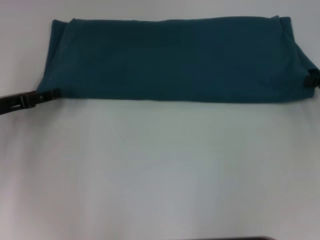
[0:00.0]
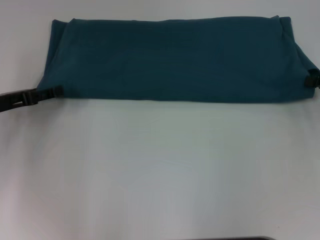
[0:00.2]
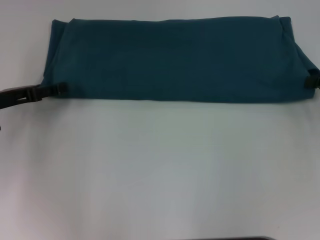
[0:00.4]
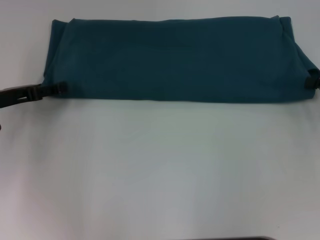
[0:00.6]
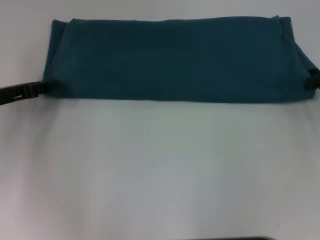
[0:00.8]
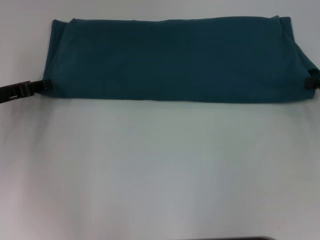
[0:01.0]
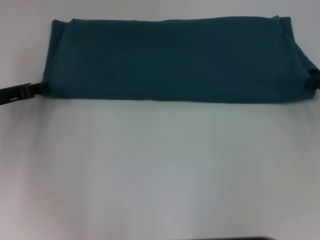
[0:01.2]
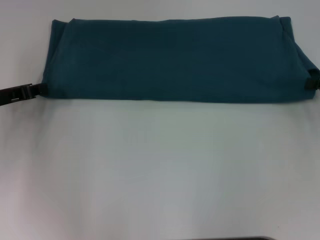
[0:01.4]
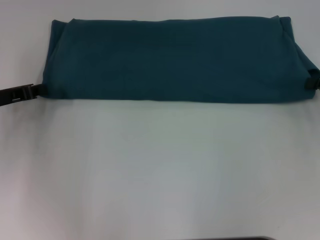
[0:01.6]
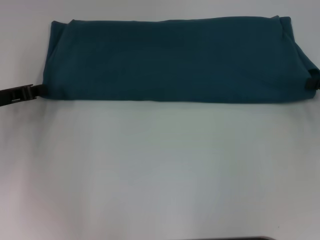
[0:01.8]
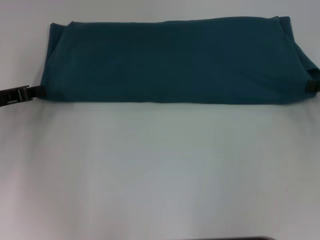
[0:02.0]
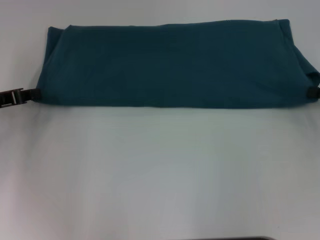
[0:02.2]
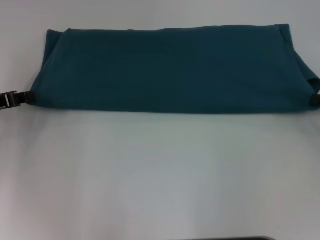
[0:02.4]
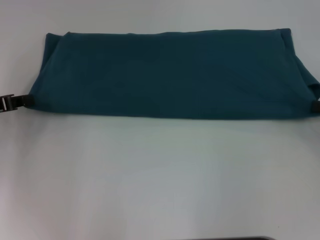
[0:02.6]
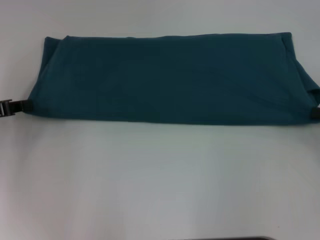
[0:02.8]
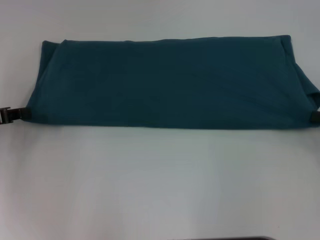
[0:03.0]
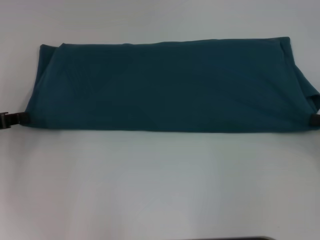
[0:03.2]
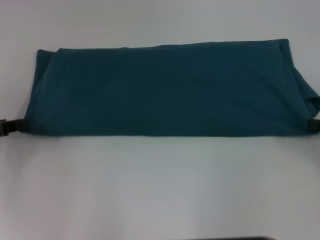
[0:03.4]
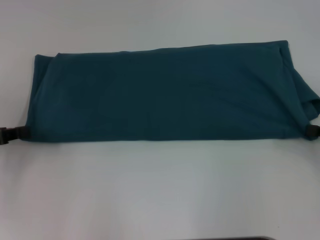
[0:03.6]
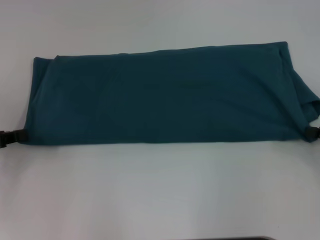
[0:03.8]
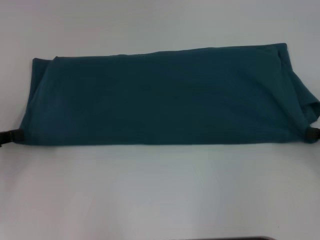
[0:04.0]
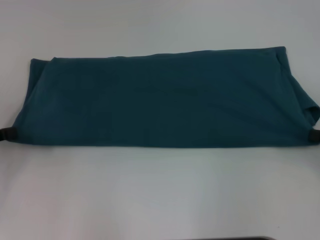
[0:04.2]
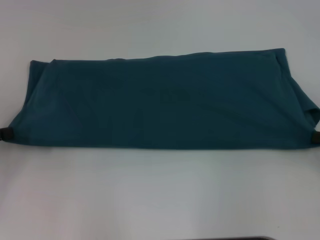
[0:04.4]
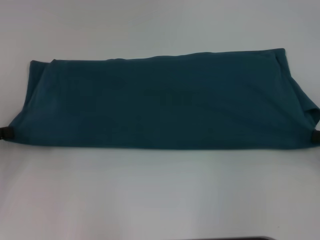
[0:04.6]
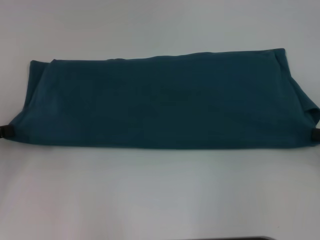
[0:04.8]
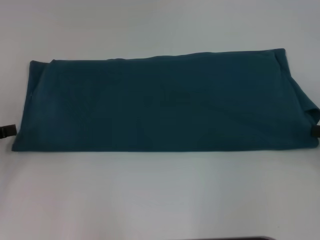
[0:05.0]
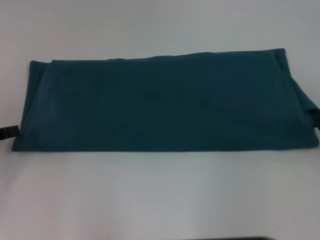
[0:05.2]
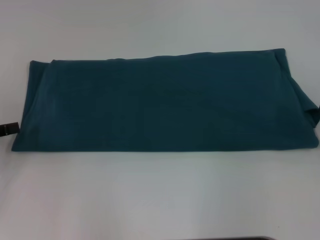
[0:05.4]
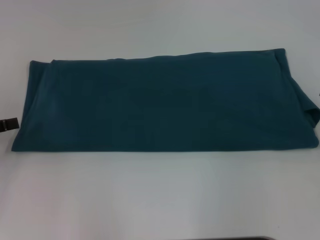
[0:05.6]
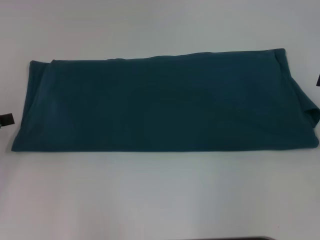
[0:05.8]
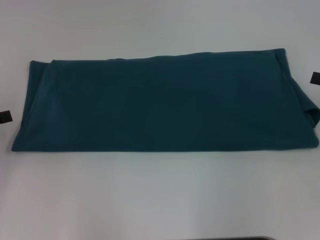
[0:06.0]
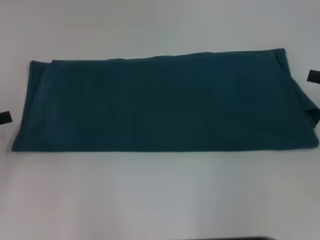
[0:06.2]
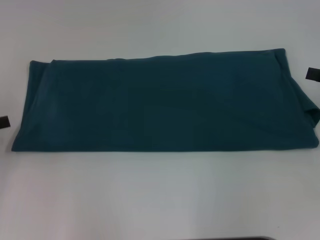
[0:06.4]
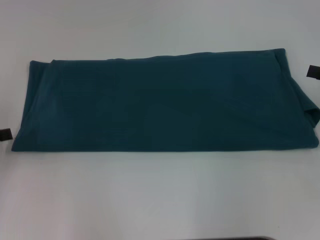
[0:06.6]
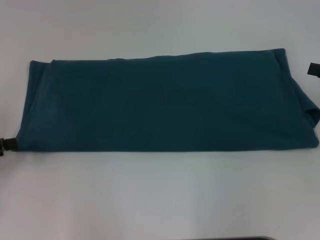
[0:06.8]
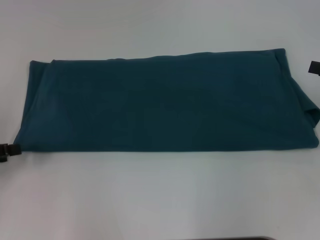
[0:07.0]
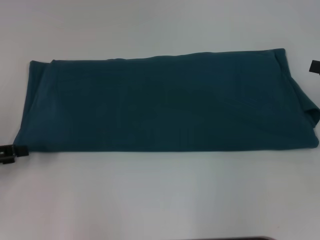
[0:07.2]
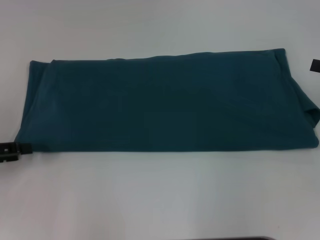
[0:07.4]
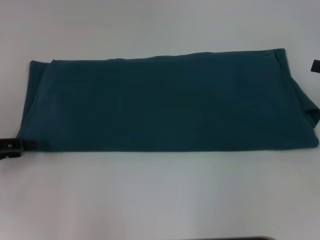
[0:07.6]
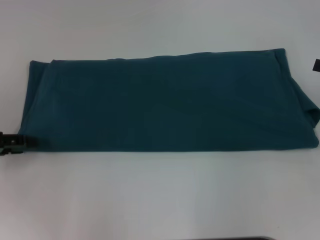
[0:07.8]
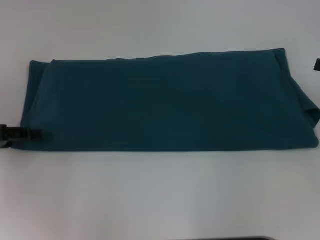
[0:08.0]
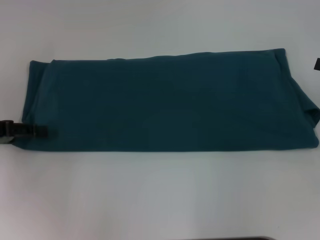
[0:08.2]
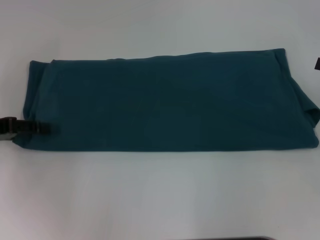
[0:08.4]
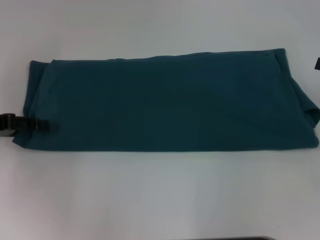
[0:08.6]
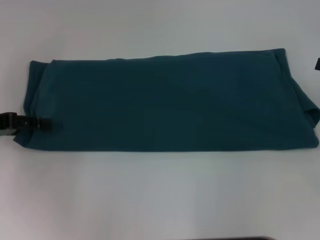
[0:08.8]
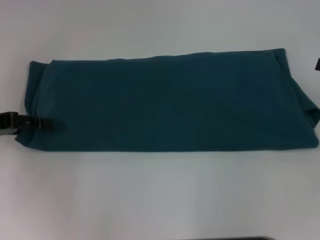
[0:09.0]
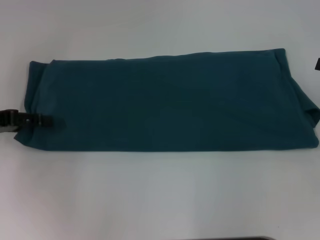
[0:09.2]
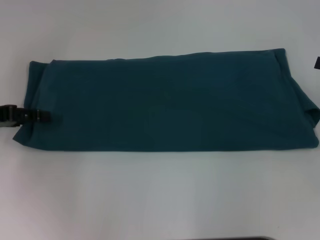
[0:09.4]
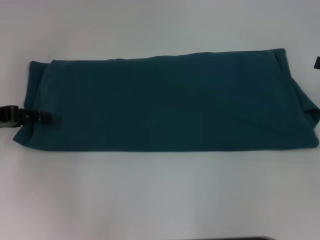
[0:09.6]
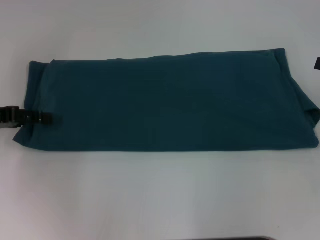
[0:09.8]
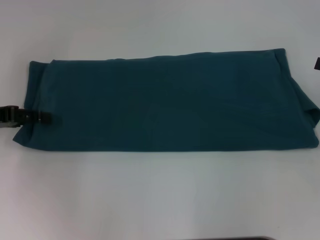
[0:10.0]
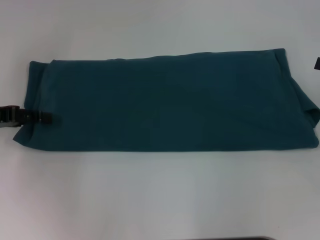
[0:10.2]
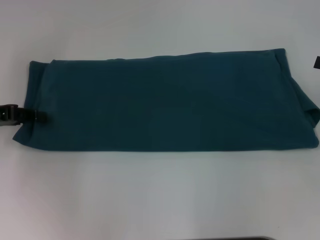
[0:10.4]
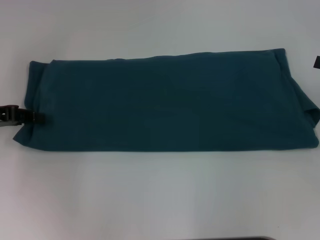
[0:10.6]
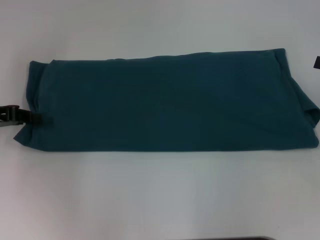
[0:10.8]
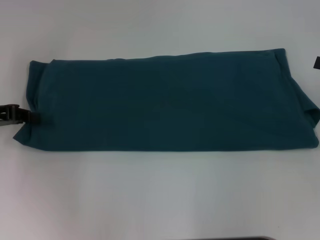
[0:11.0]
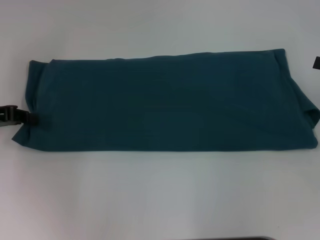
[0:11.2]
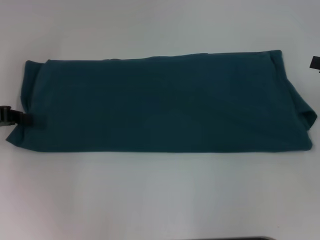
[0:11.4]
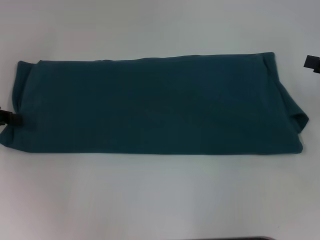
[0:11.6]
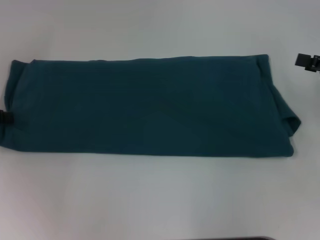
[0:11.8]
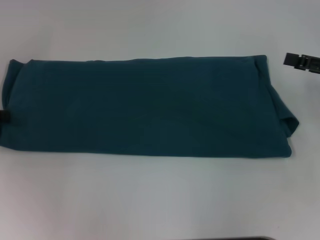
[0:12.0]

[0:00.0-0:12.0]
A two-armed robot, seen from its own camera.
Step, 0:00.0 to 0:04.8: Pull the clothes with your left hand.
Step, 0:00.0 to 0:04.8: Pull the clothes with your right hand.
0:00.0 to 0:01.6: The left gripper closes.
0:01.6 to 0:03.0: The right gripper heads backward, covering some 5 cm; the left gripper ends up approximately 5 cm from where it was.
0:03.0 to 0:04.4: The grippers make only small movements.
0:04.4 to 0:06.0: The right gripper ends up some 5 cm from where it was, and opens, while the left gripper opens.
0:06.0 to 0:07.6: The grippers stay close to where they were, moving slightly.
0:07.6 to 0:09.0: The left gripper moves roughly 5 cm.
0:10.4 to 0:12.0: The left gripper closes.

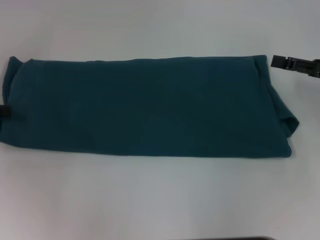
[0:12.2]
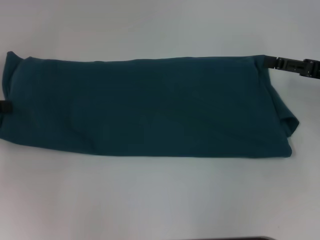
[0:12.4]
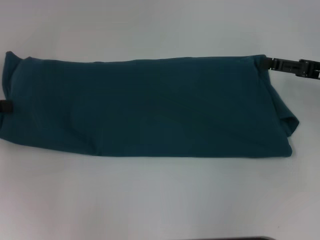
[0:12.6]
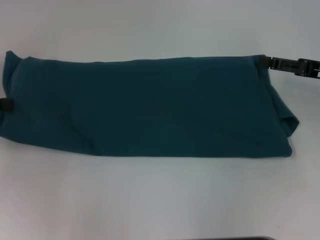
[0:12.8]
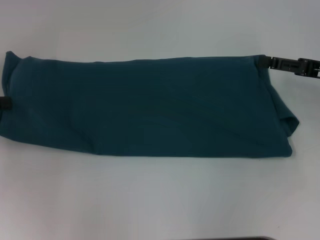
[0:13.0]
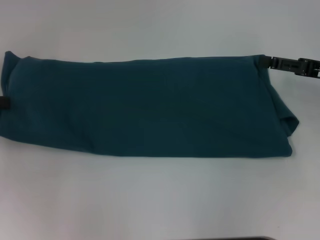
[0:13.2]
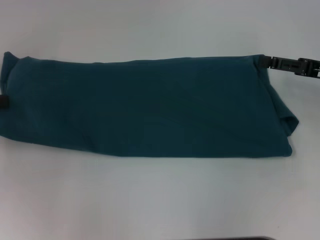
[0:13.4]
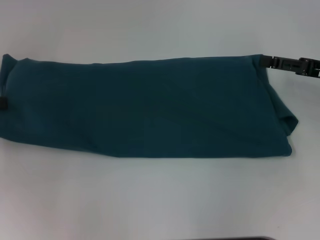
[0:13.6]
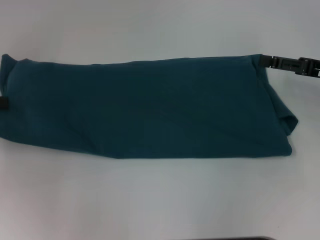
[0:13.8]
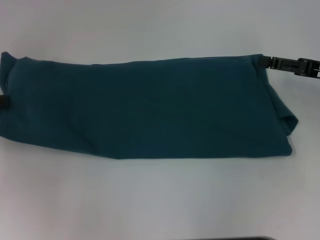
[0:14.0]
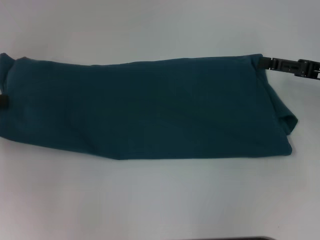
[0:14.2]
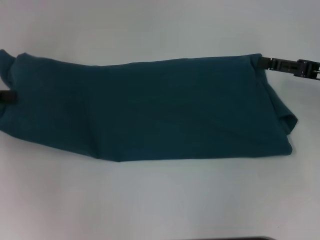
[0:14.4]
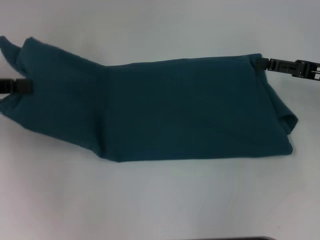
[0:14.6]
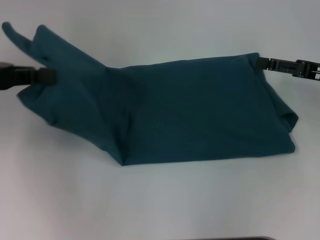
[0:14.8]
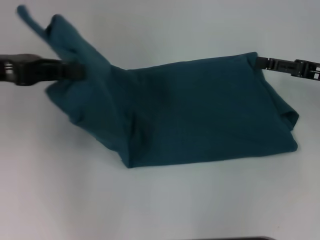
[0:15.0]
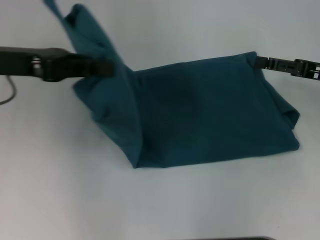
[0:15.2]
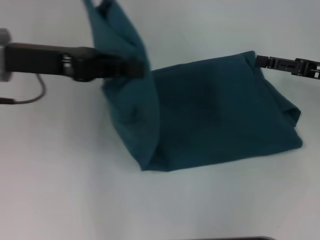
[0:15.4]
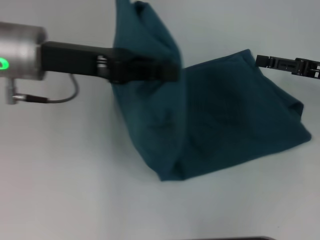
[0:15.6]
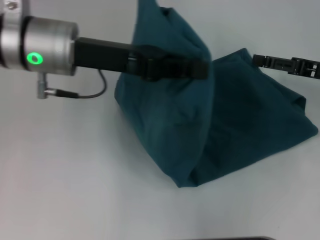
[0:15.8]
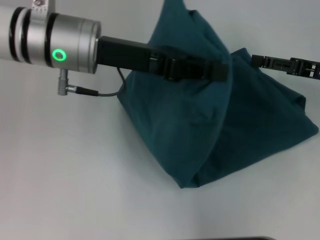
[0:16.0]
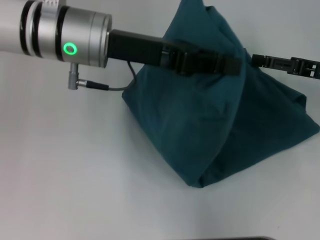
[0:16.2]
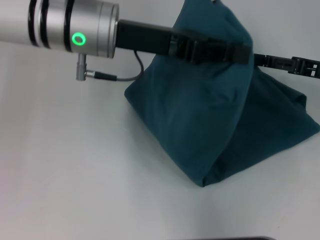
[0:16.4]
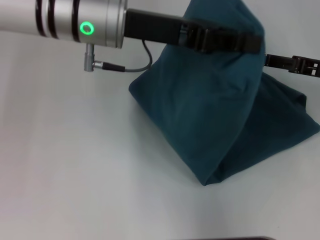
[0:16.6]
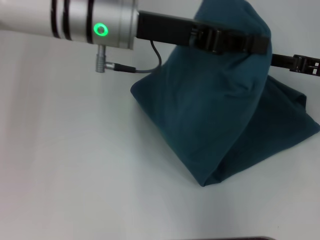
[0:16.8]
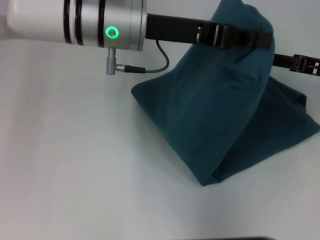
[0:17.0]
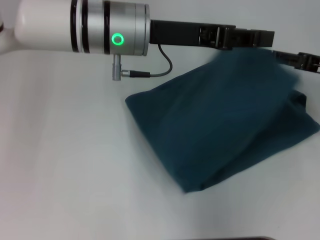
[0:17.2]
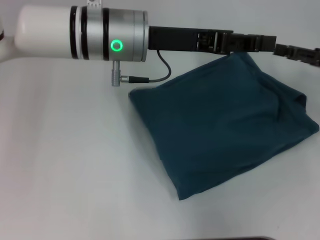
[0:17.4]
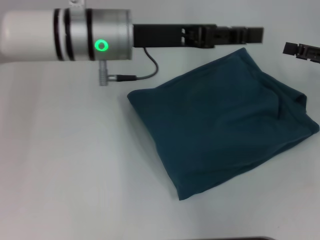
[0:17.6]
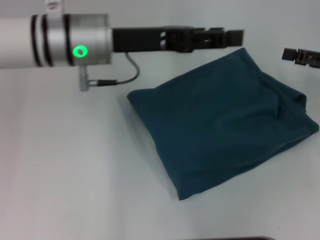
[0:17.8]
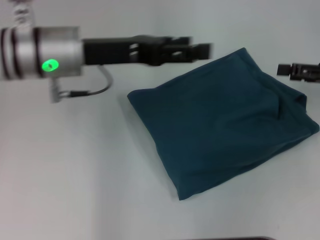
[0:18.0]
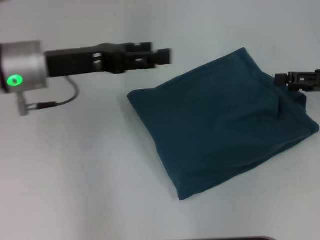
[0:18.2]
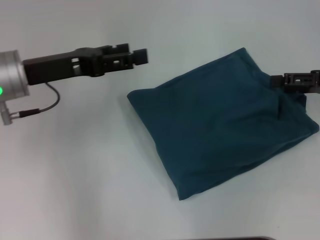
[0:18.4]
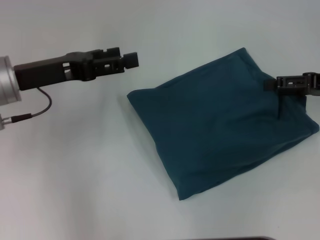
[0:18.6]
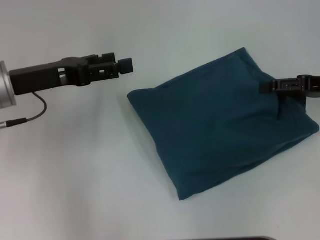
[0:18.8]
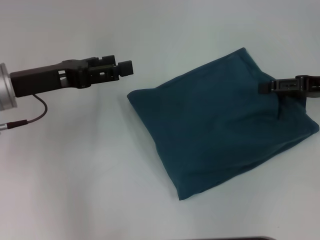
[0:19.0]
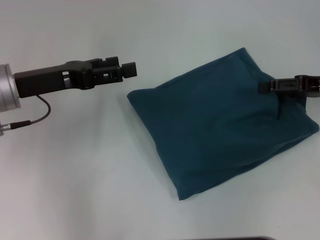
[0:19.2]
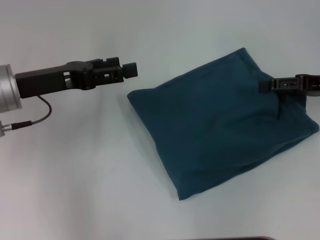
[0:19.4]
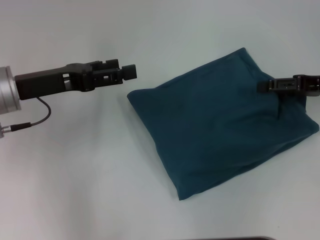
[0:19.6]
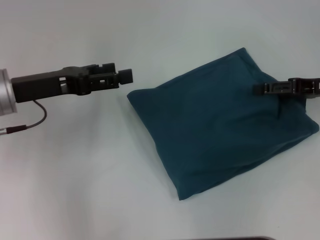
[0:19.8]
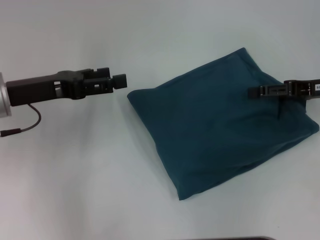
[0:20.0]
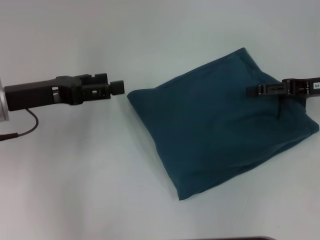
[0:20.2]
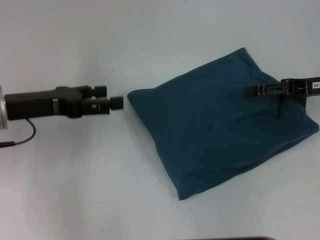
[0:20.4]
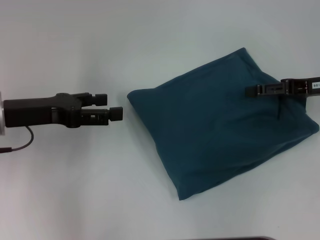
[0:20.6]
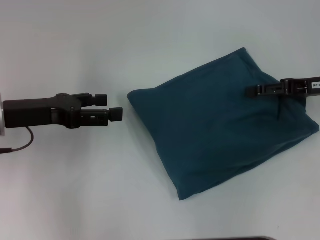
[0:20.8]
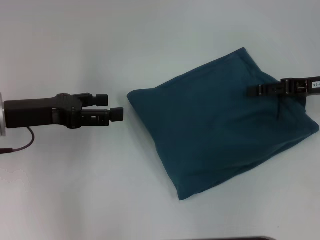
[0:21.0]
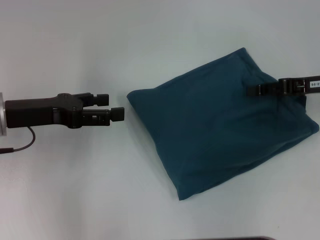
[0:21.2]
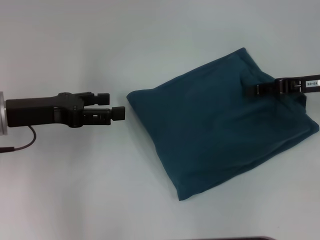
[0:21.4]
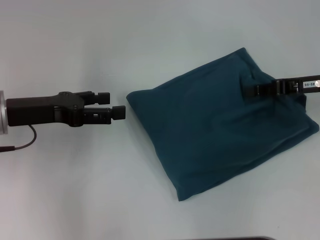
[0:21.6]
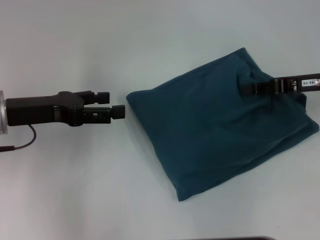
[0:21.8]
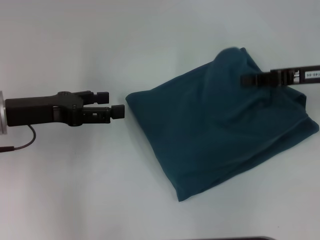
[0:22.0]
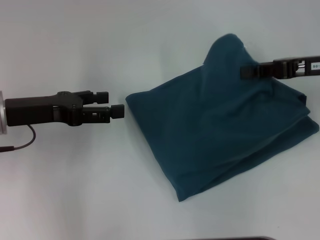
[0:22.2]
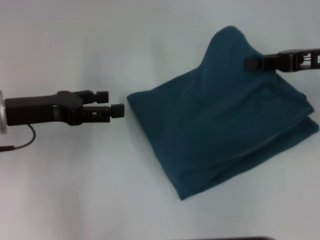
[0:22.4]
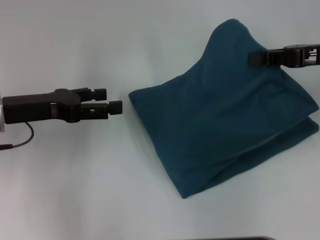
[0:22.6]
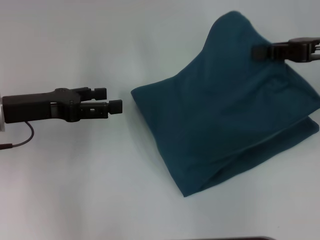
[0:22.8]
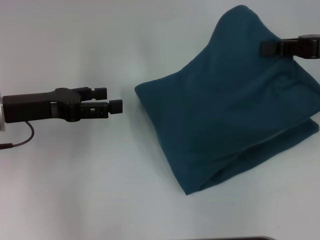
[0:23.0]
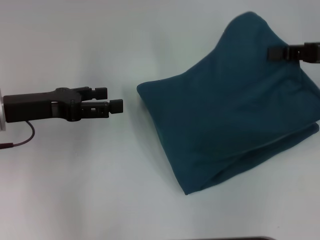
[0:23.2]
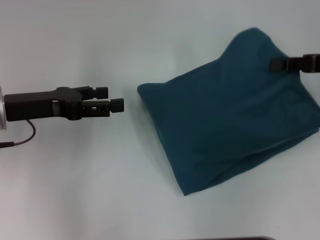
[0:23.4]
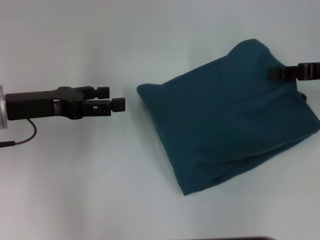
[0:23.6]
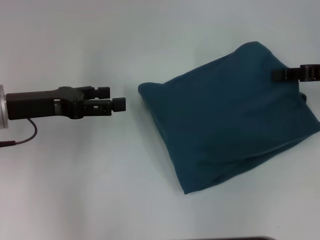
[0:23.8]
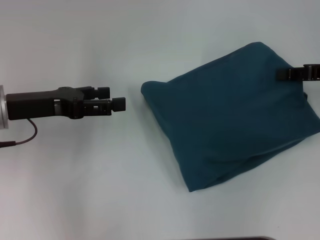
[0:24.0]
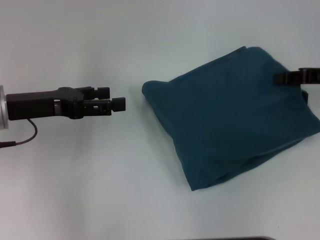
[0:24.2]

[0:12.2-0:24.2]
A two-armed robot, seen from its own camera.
Step, 0:12.2 to 0:17.4: Fold the clothes to the left.
0:12.2 to 0:13.8: The grippers move only a little.
0:13.8 to 0:15.2: The left gripper heads to the right, covering some 15 cm.
0:15.2 to 0:16.6: The left gripper travels to the right by about 15 cm.
0:16.6 to 0:18.2: The left gripper moves to the left and downward, approximately 10 cm, and opens its fingers.
0:18.2 to 0:19.8: The left gripper ends up approximately 5 cm from where it was.
0:19.8 to 0:21.2: The grippers make only small movements.
0:21.2 to 0:22.6: The right gripper shifts about 5 cm upward, and closes its fingers.
0:22.6 to 0:24.2: The right gripper moves downward, about 5 cm.
